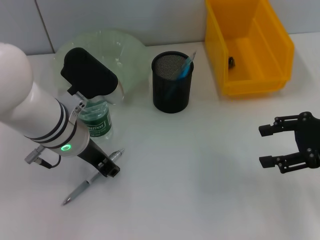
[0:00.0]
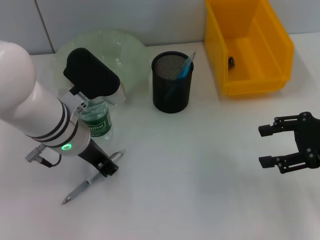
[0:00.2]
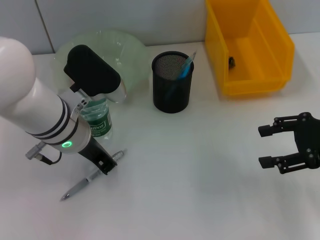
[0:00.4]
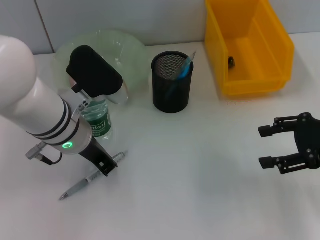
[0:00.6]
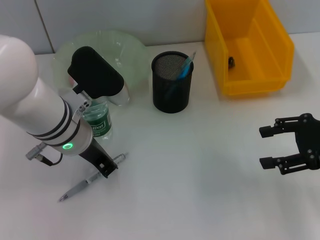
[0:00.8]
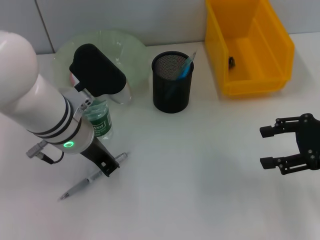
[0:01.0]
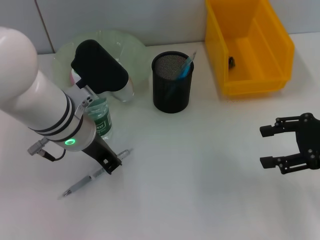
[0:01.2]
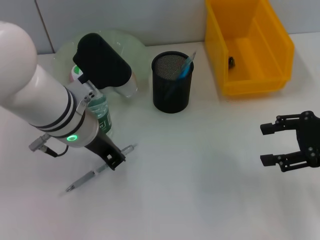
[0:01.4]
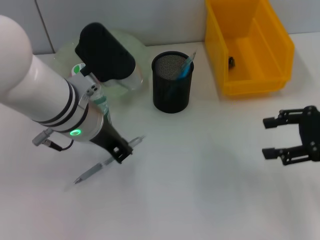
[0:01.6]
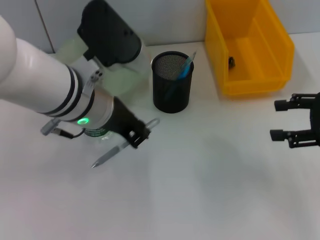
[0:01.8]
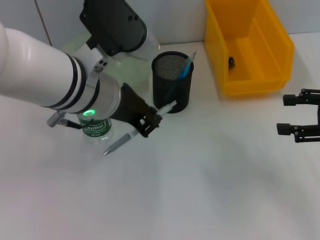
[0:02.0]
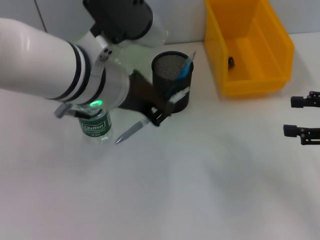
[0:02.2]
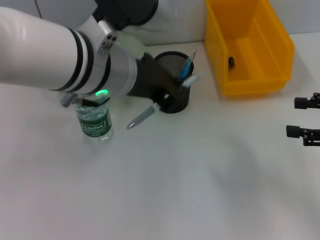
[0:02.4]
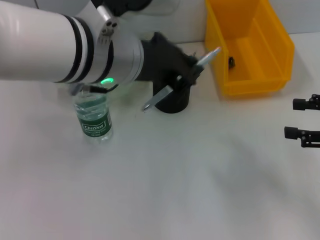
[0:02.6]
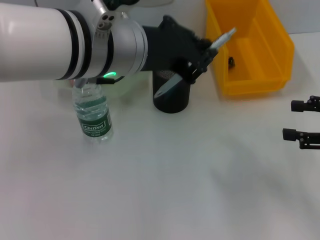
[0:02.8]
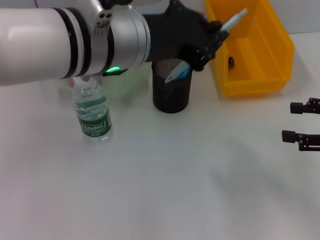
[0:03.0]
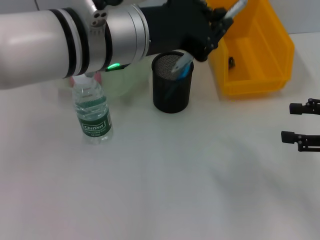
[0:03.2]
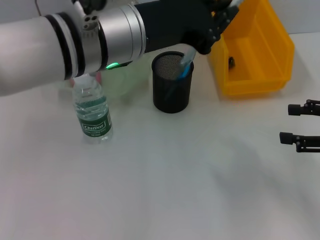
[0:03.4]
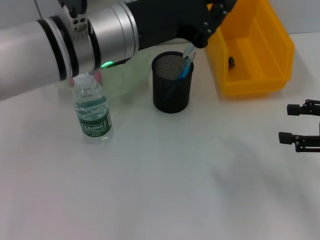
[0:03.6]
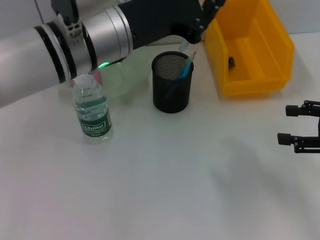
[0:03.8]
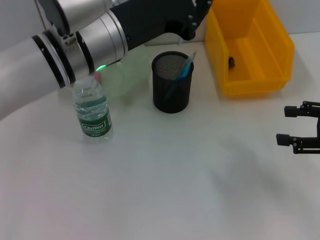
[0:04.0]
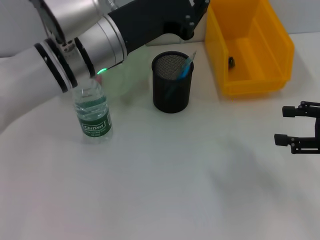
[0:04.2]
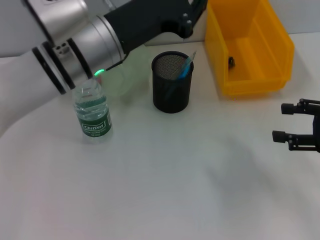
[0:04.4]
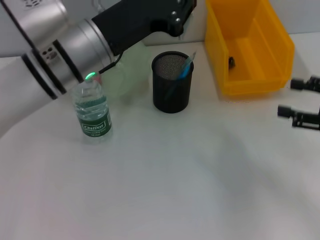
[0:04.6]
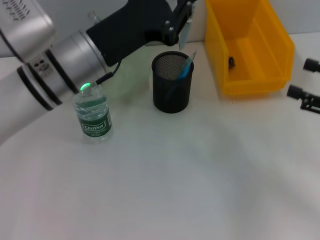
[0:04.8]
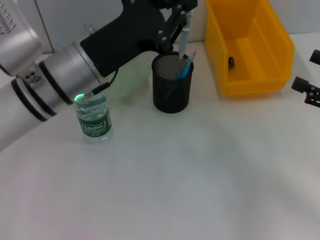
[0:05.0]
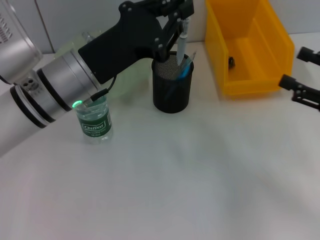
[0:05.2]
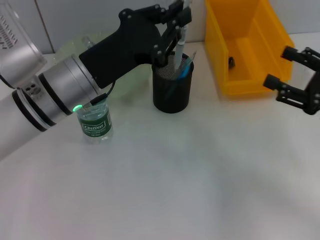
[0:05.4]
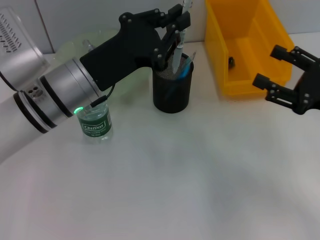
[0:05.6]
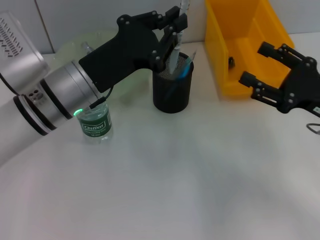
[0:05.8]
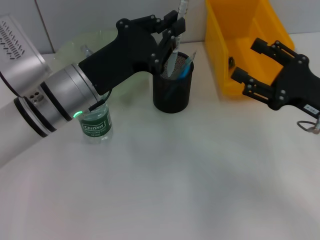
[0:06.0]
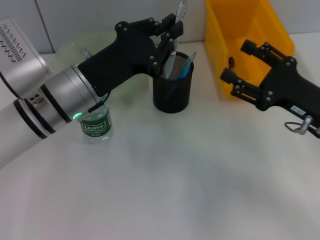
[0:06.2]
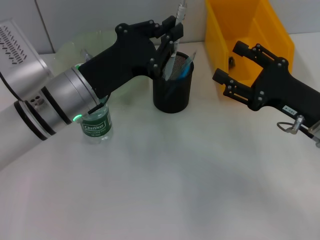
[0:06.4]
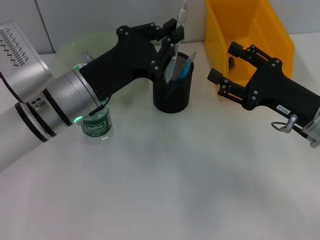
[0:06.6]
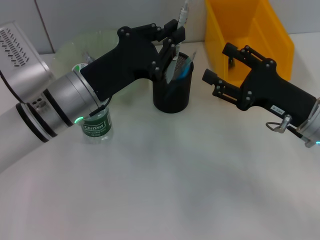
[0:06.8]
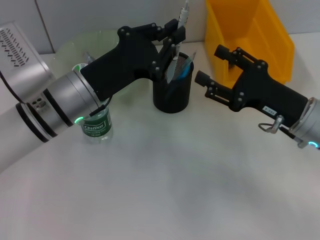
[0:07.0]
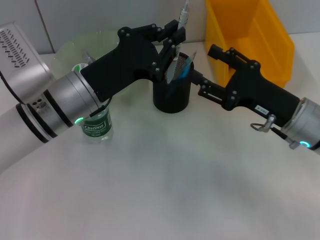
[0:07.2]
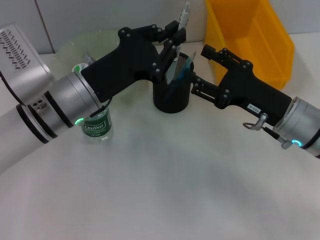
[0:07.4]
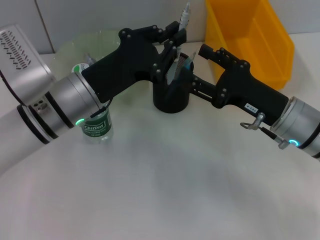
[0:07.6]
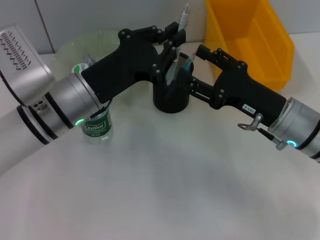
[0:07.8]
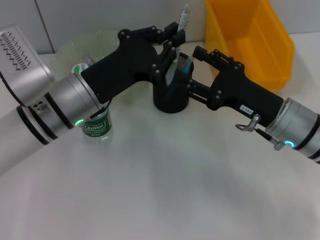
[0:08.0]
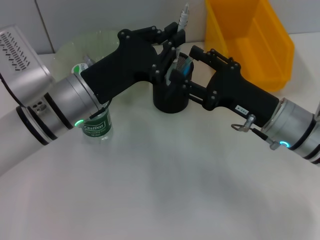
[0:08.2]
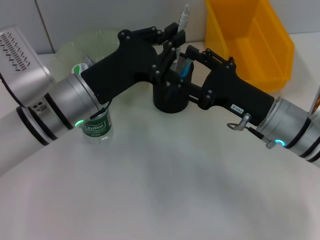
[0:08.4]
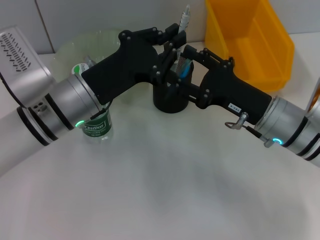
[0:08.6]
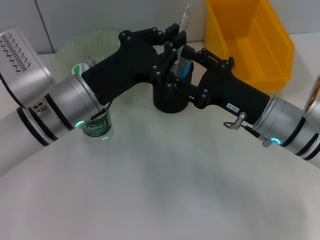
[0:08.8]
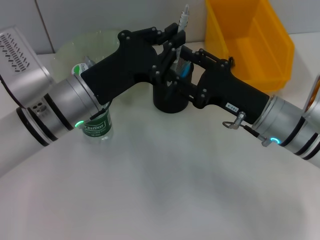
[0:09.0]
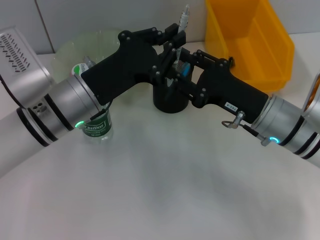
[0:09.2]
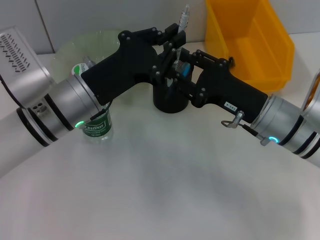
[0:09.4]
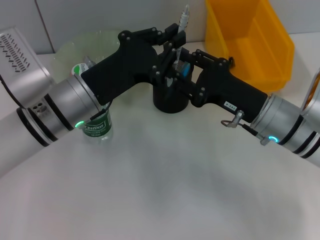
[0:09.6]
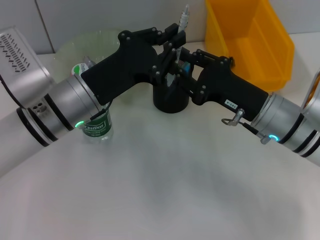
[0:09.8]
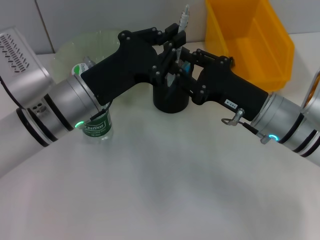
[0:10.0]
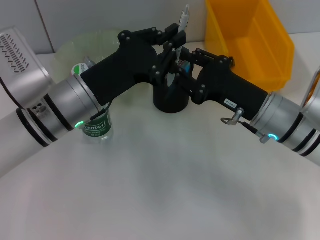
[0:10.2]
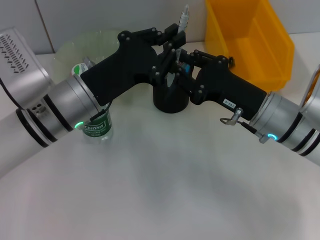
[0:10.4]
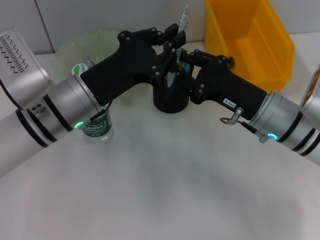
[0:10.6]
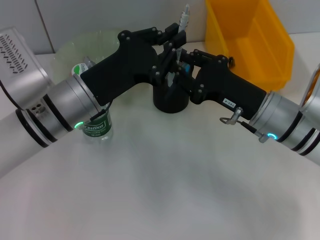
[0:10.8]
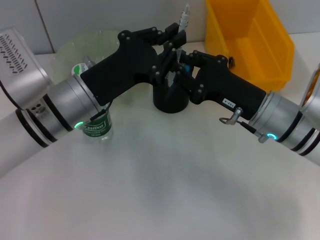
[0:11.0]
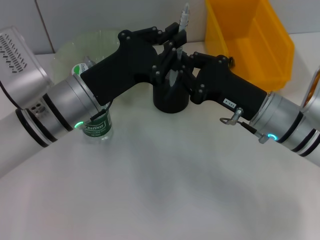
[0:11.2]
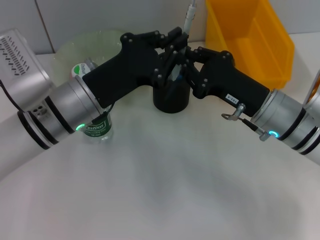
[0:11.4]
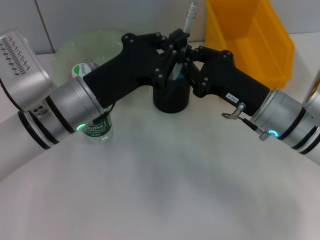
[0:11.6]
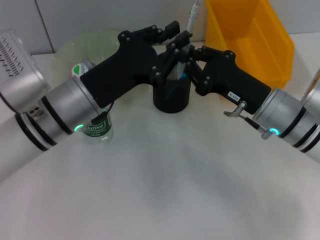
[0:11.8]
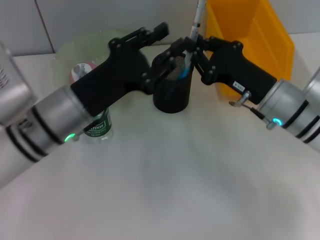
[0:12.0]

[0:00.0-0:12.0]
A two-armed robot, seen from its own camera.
Step, 0:01.0 to 0:11.8: Pass the gray spring-action pen from the left hand to the right hand.
0:00.0 to 0:01.6: The left gripper closes up.
0:01.6 to 0:03.0: The left gripper moves upward, roughly 10 cm.
0:03.0 to 0:04.4: The left gripper moves downward, approximately 5 cm.
0:04.4 to 0:06.0: The right gripper shifts roughly 10 cm to the left, while the left gripper heads downward, covering about 5 cm.
0:06.0 to 0:07.6: The right gripper heads to the left, covering approximately 5 cm.
0:07.6 to 0:09.0: There are only small adjustments of the grippers.
0:09.0 to 0:10.4: The right gripper closes its fingers.
0:10.4 to 0:12.0: The grippers stay close to where they were, moving slightly.

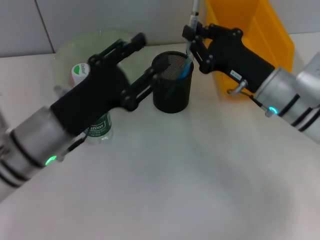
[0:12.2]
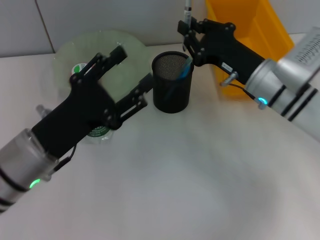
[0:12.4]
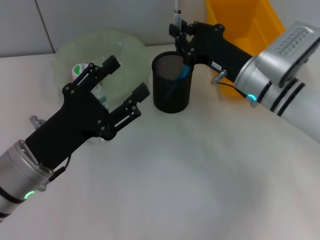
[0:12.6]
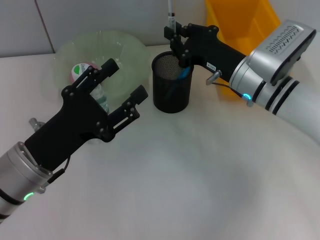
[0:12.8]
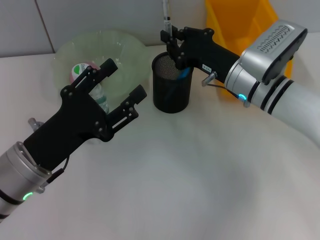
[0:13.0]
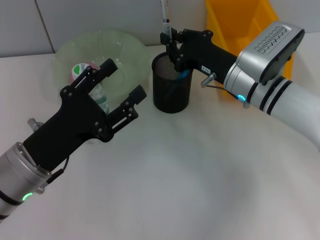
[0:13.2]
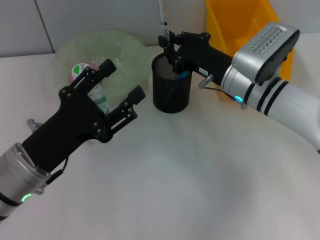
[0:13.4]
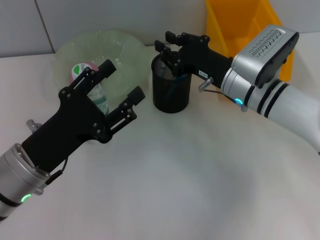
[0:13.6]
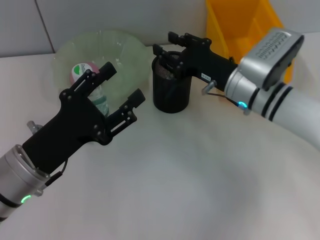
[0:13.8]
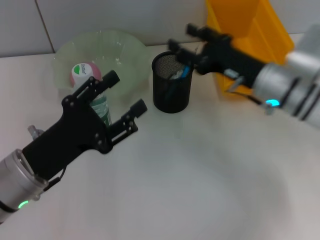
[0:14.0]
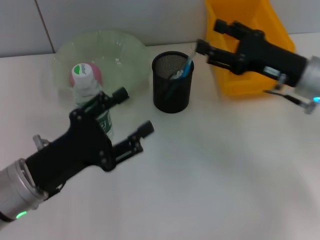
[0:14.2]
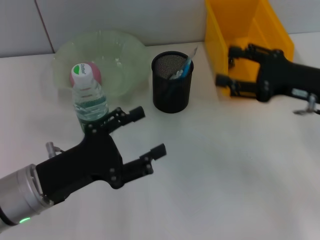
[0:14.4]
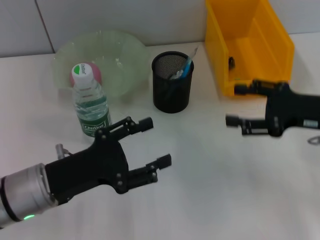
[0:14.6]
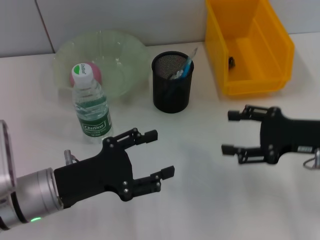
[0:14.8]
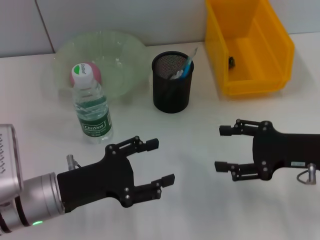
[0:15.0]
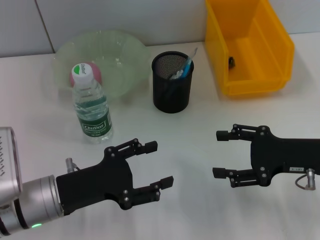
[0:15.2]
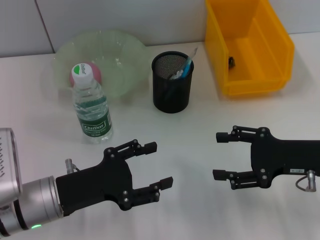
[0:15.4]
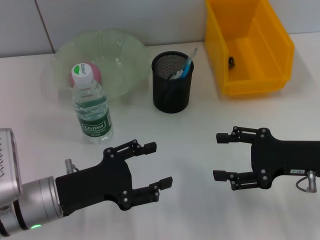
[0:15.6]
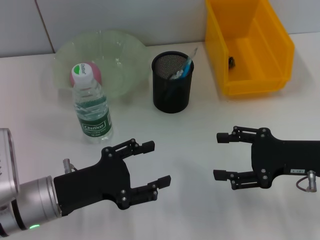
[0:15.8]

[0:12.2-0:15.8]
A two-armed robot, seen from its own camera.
Step, 0:12.2 to 0:14.0: Place the gray spring-action pen into the pen holder with the right hand.
0:12.2 to 0:14.0: The left gripper changes place by approximately 5 cm, and opens its fingers, while the right gripper opens up.
0:14.0 to 0:15.8: The right gripper moves backward and to the right, approximately 10 cm, and opens its fingers.
